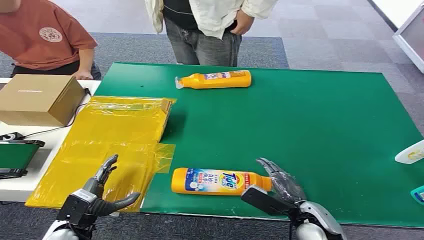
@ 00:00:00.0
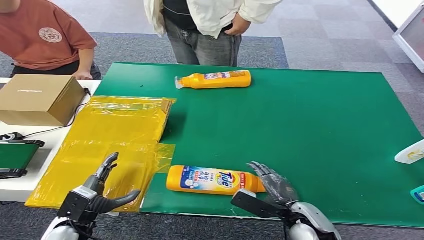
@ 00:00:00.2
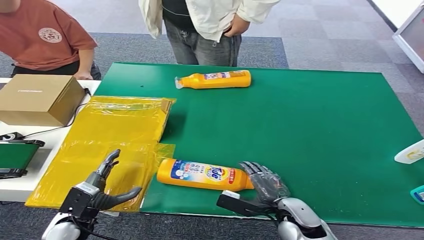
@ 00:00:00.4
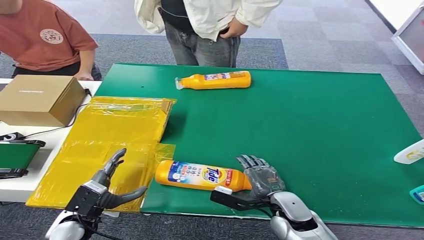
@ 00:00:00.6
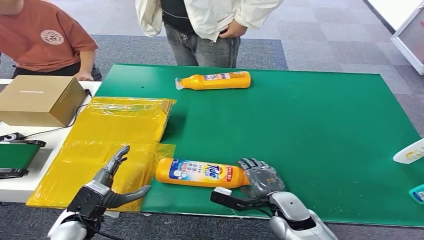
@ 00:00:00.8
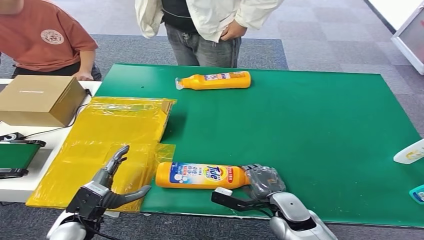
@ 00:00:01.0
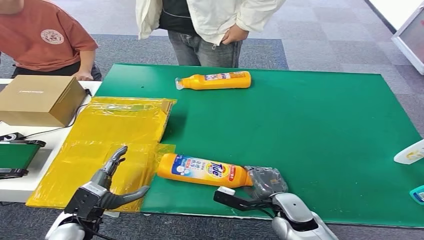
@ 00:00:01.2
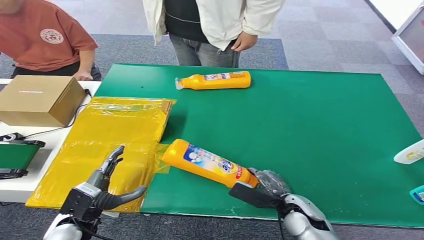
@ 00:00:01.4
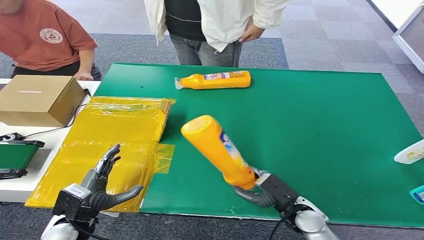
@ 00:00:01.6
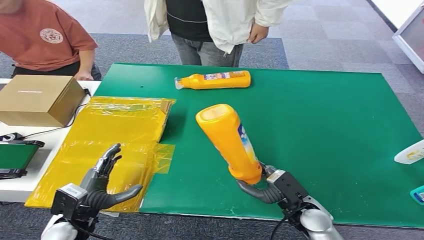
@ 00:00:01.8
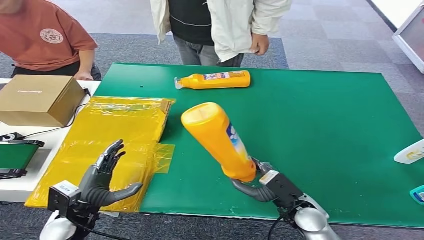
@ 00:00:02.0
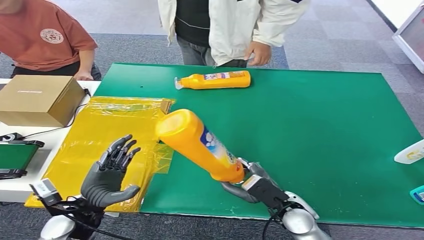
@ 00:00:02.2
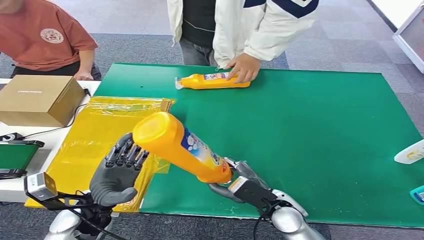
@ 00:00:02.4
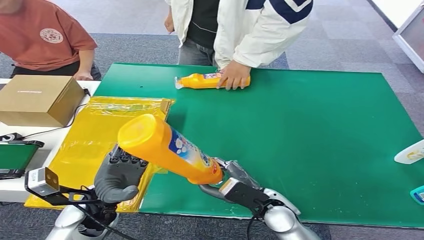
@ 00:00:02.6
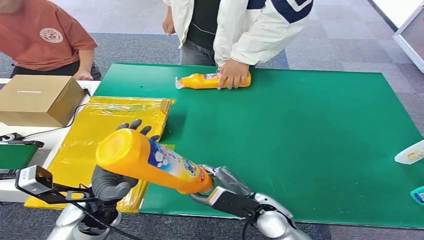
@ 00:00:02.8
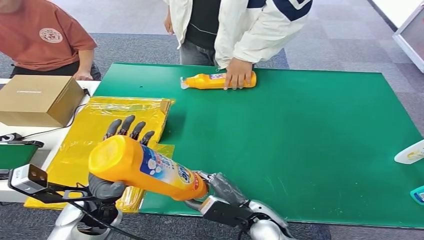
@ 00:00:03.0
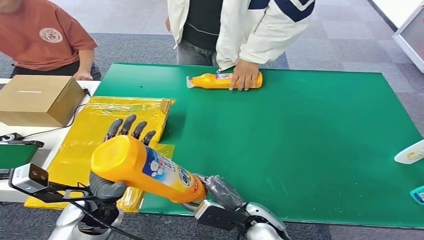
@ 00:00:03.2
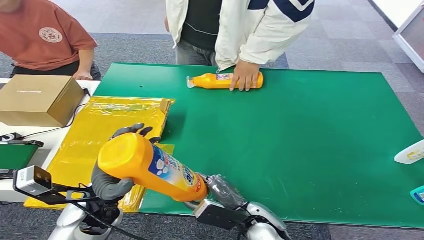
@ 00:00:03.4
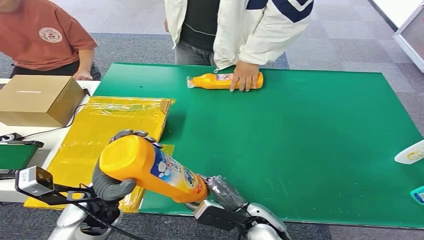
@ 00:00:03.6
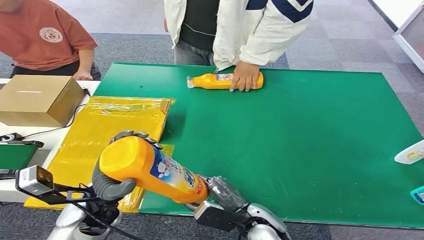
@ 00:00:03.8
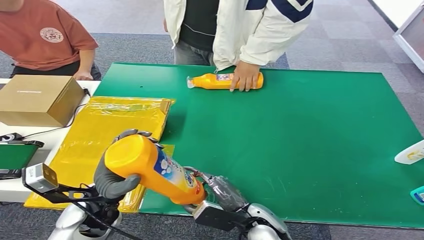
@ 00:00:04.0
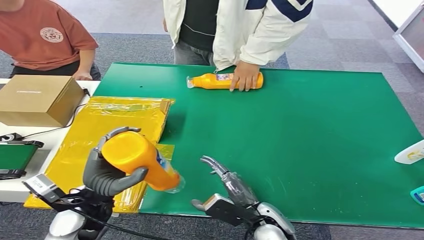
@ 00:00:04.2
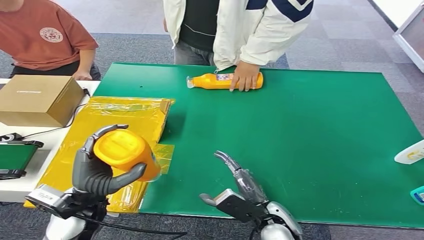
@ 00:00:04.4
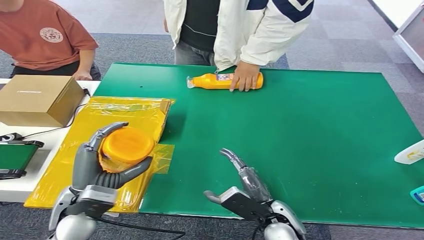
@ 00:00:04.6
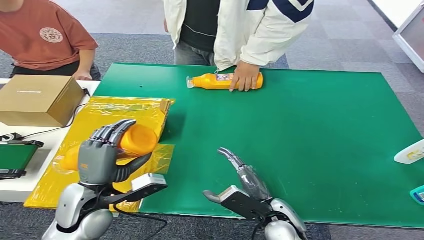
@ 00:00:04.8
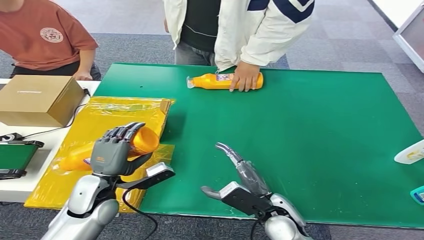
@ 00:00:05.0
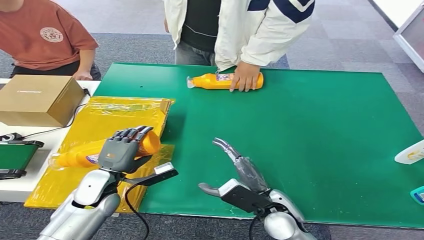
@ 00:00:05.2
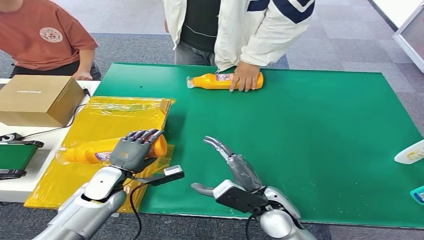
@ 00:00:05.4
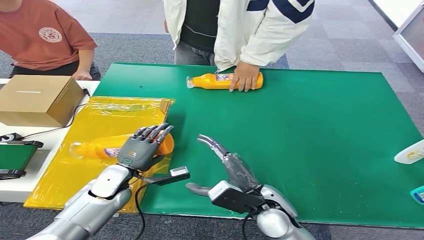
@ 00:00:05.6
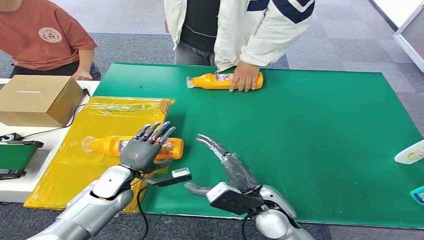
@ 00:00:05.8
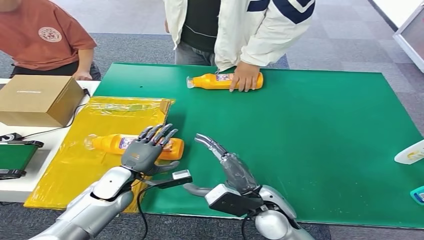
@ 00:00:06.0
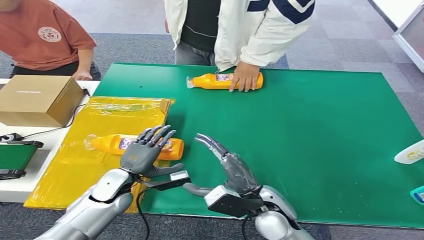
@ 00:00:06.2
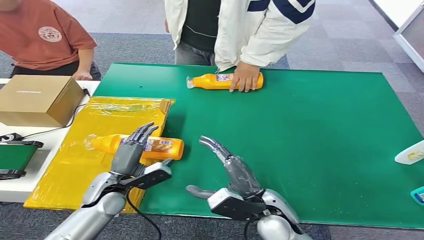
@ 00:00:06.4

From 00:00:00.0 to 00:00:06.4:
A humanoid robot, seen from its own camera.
Step, from 00:00:00.0 to 00:00:01.8: Pick up the bottle from the table.
Step, from 00:00:02.0 to 00:00:06.4: Turn the bottle to the front side.
From 00:00:04.8 to 00:00:06.4: The left hand travels downward and forward by some 10 cm. Meanwhile the right hand ends up about 5 cm from where it was.
